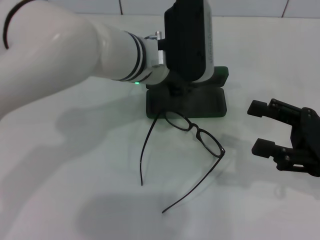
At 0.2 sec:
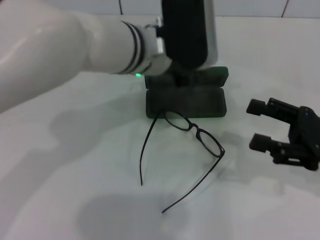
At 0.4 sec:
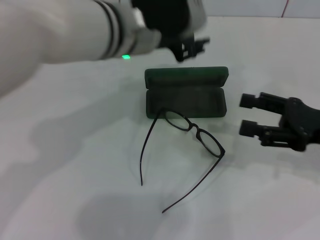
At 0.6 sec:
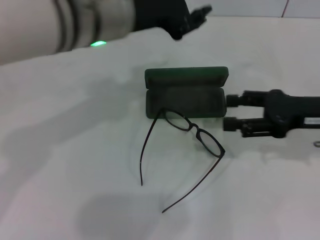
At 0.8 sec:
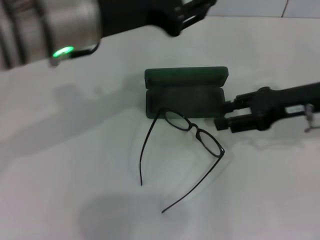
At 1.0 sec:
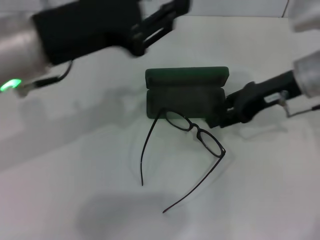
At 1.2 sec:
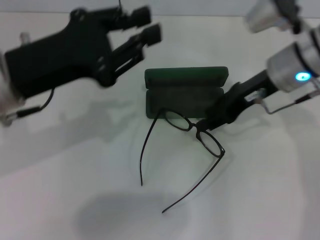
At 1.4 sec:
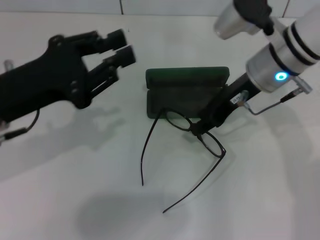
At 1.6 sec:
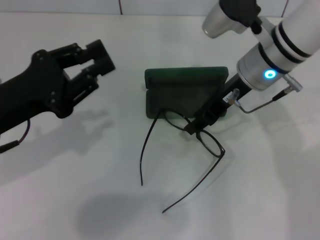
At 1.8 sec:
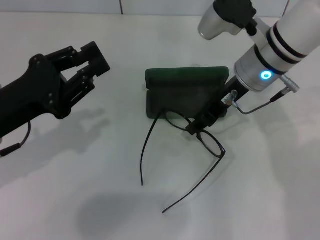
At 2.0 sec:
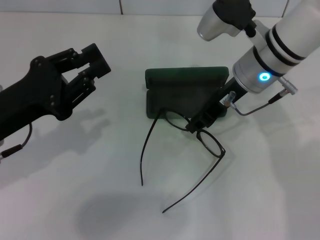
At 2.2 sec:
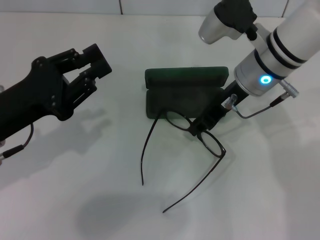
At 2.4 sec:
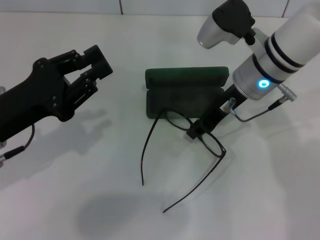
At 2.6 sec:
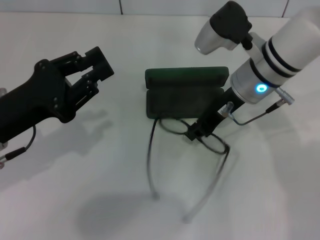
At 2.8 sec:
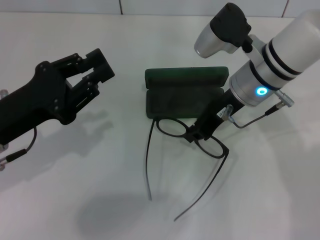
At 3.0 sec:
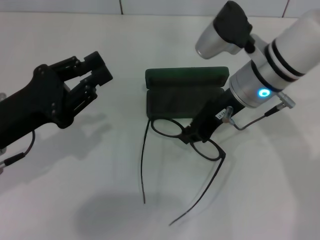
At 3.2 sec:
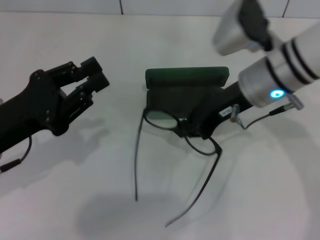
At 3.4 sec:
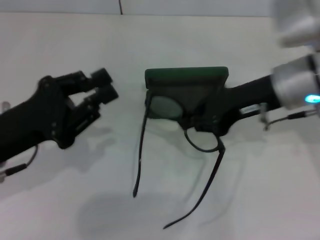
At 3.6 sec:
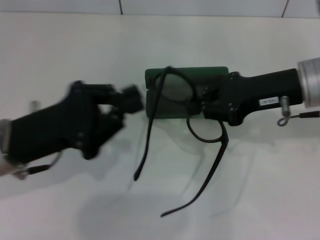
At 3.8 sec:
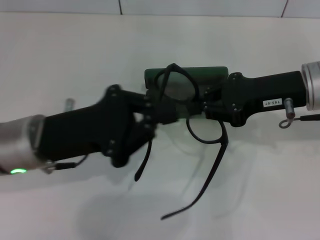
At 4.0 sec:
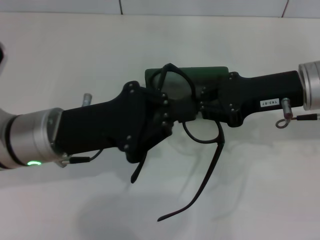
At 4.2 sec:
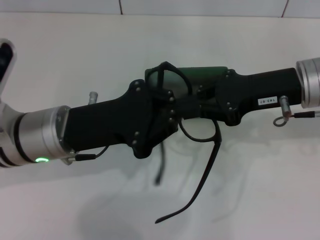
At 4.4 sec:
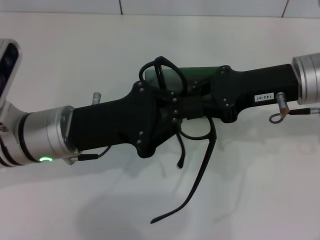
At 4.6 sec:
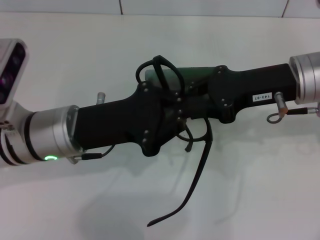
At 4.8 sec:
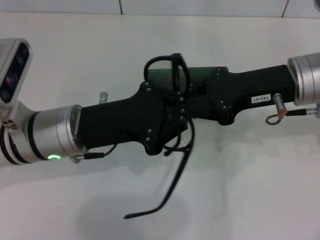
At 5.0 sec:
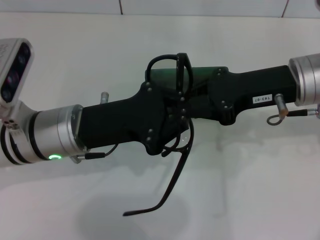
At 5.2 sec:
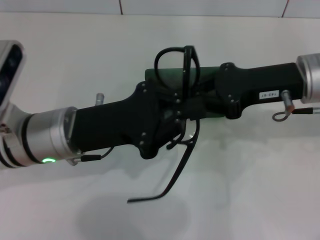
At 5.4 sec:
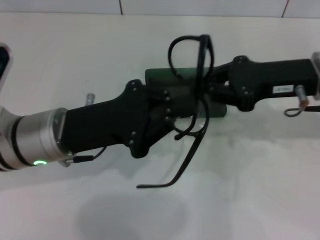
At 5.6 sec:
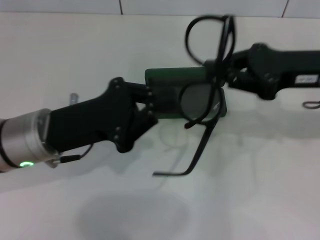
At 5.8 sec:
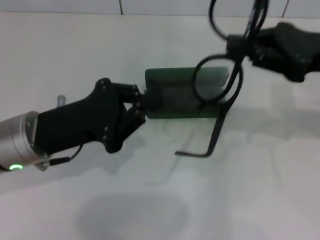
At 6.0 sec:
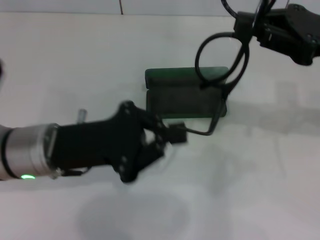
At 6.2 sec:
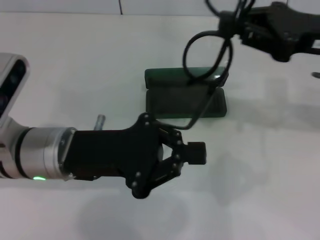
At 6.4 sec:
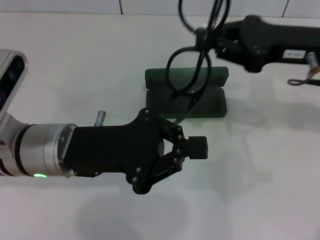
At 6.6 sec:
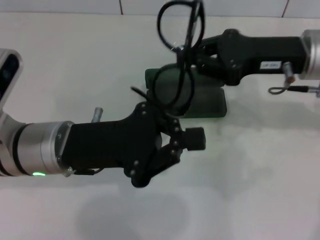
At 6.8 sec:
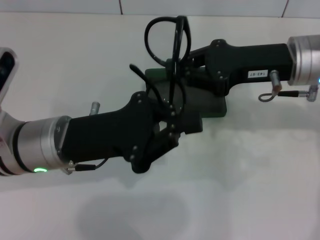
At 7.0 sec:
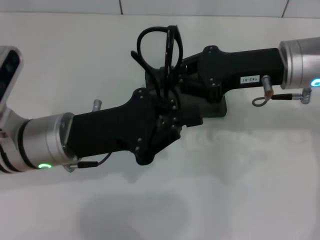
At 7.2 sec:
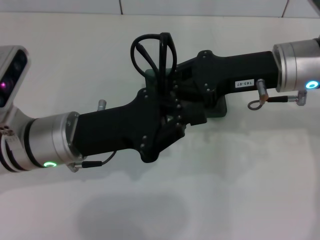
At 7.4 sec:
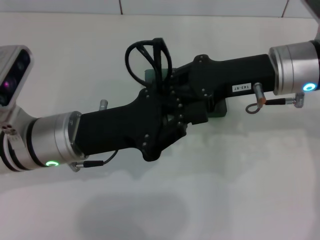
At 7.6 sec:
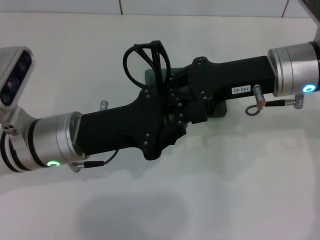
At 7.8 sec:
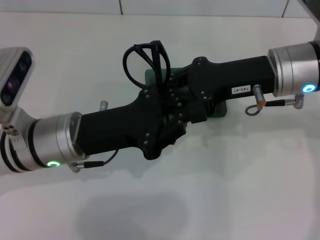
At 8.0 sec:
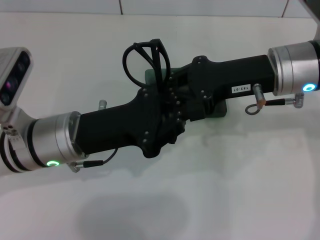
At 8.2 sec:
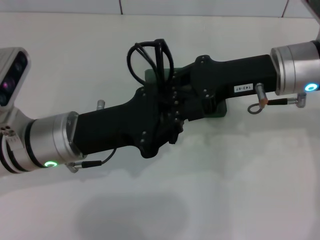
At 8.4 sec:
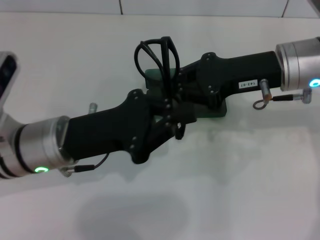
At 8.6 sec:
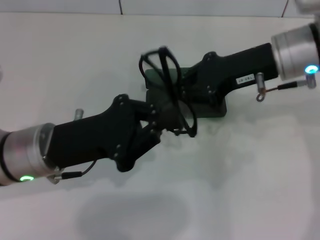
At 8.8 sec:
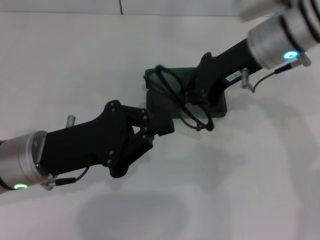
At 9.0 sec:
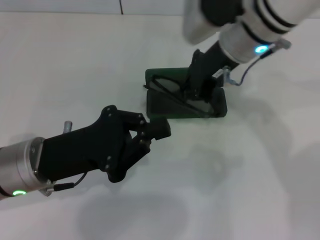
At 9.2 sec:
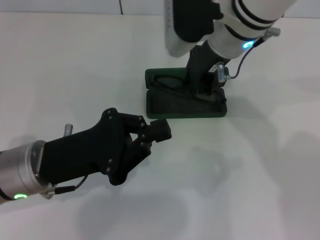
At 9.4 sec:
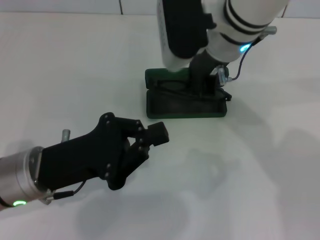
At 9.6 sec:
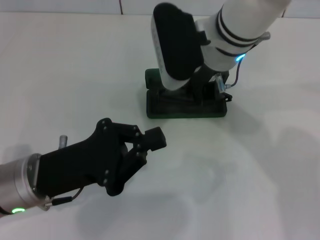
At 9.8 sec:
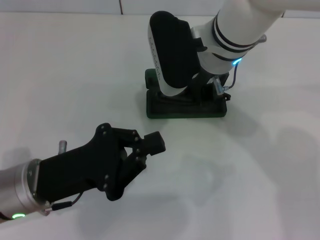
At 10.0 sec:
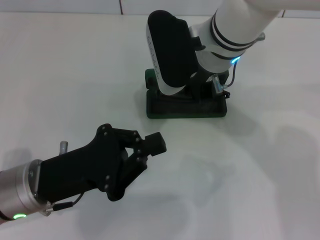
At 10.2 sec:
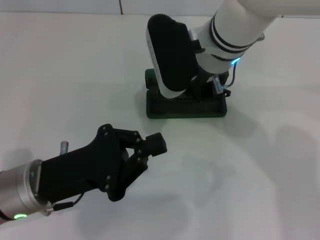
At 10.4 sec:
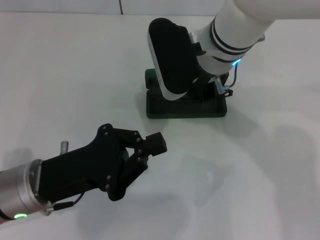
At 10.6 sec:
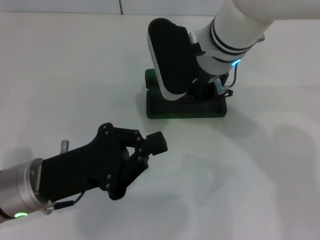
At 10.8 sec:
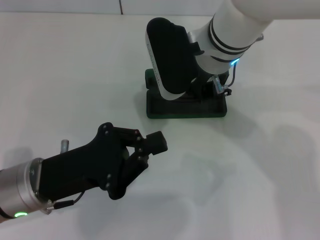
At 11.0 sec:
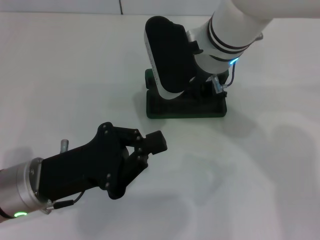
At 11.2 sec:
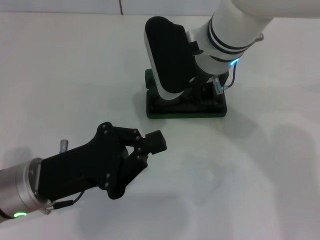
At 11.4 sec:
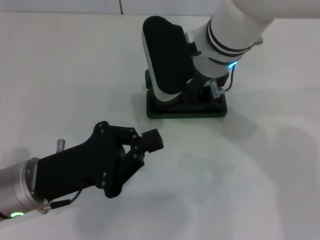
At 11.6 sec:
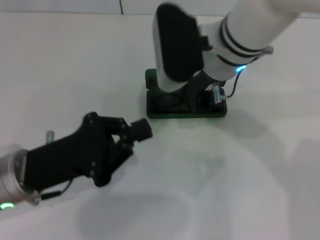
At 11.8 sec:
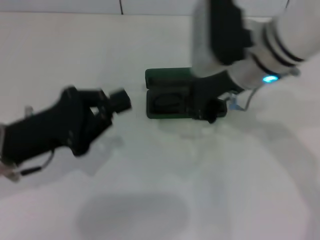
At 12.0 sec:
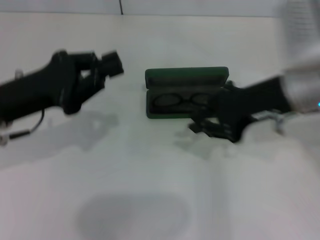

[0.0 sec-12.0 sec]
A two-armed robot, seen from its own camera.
Step, 0.2 sec to 2.8 sec: Grab the eyeglass frame with your right hand.
Step, 3.0 sec to 8.4 sec: Fold the frame with your left hand.
Step, 8.6 sec to 11.2 sec: Put the glasses into the case with your right hand.
0.0 sec to 1.6 sec: The right gripper is displaced to the left and forward by about 20 cm, and closes up; the left gripper moves to the left and backward, some 25 cm.
1.6 sec to 3.0 sec: The right gripper closes up.
3.0 sec to 4.4 sec: Both grippers travel together to the right, approximately 10 cm.
4.4 sec to 6.0 sec: The right gripper travels to the right by some 5 cm.
6.0 sec to 7.6 sec: The right gripper moves to the left, approximately 10 cm.
7.6 sec to 9.0 sec: The right gripper is displaced to the left by some 5 cm. The left gripper moves roughly 5 cm.
9.0 sec to 10.4 sec: The right gripper ends up approximately 5 cm from where it was.
10.4 sec to 12.0 sec: The right gripper is displaced to the right and backward by about 15 cm; the left gripper travels forward, upward and to the left by roughly 10 cm.

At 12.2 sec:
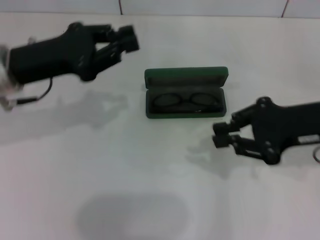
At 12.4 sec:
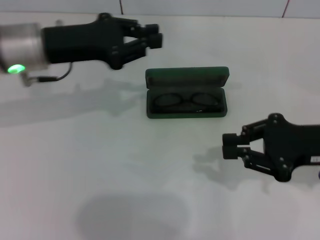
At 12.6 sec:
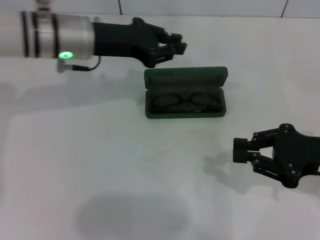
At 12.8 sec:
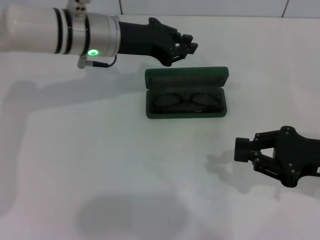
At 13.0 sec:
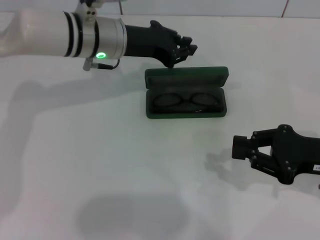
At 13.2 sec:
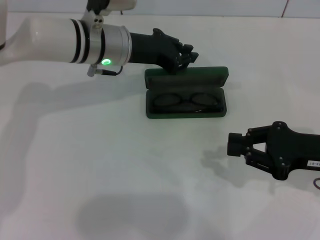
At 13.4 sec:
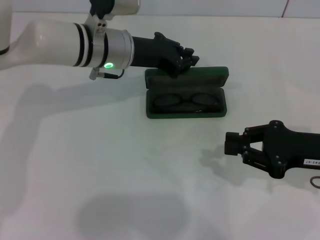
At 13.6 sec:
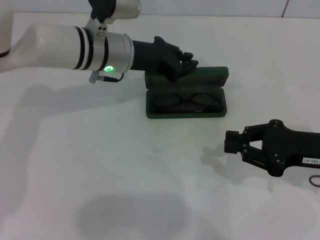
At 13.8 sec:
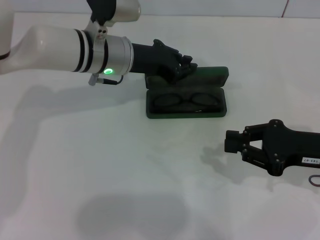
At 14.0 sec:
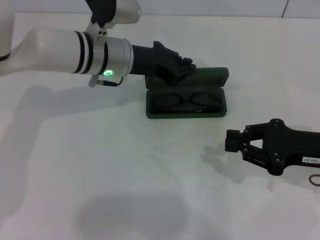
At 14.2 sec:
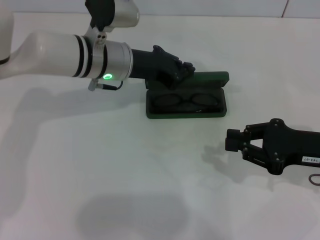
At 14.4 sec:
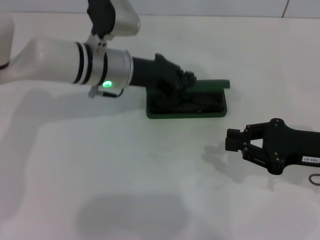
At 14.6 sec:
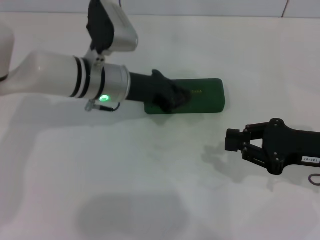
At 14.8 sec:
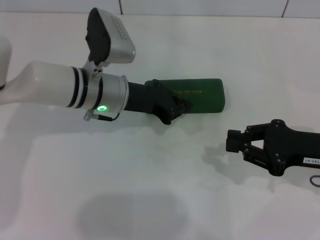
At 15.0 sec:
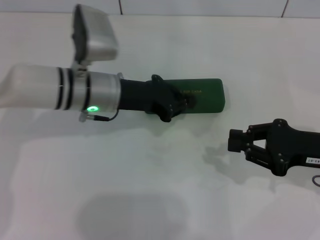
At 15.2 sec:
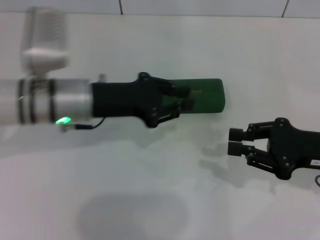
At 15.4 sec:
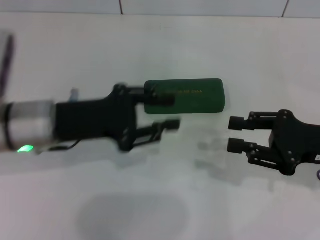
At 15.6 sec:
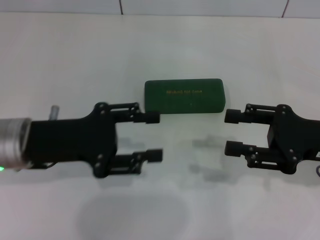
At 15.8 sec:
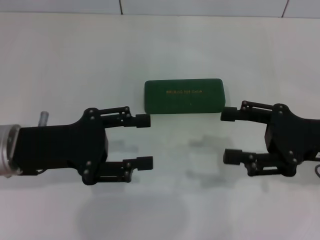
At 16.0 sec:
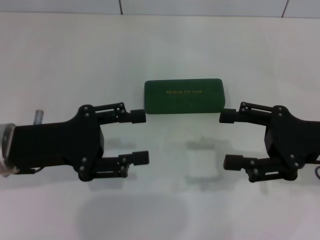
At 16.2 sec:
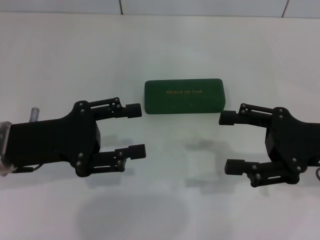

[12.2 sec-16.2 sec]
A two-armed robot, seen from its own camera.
Step, 12.2 sec to 14.4 sec: Close the glasses case with your left hand.
12.2 sec to 13.6 sec: The left gripper heads to the right and forward, covering approximately 15 cm. Meanwhile the right gripper is displaced downward by roughly 5 cm.
13.6 sec to 14.8 sec: The left gripper changes place by about 5 cm.
14.8 sec to 16.2 sec: The right gripper opens. The left gripper travels to the left and backward by approximately 15 cm, and opens its fingers.
